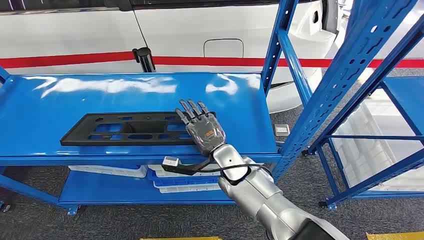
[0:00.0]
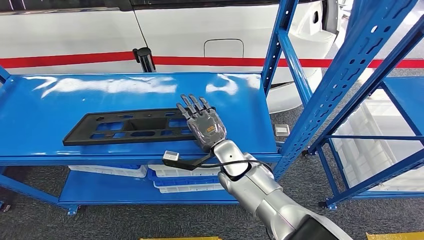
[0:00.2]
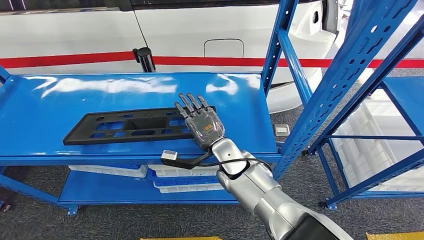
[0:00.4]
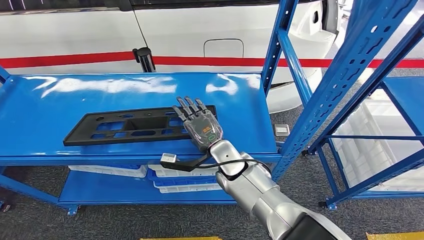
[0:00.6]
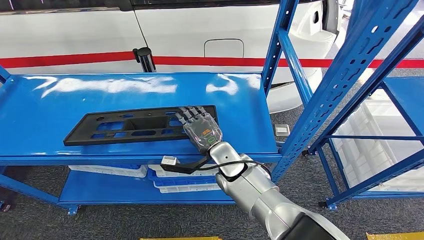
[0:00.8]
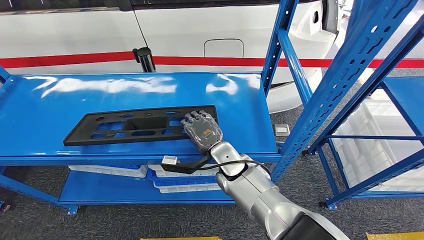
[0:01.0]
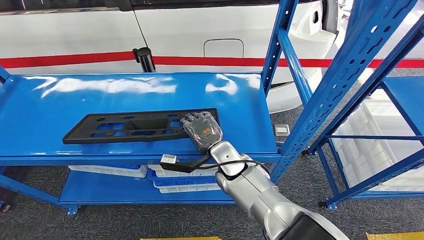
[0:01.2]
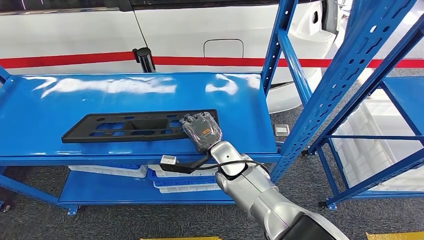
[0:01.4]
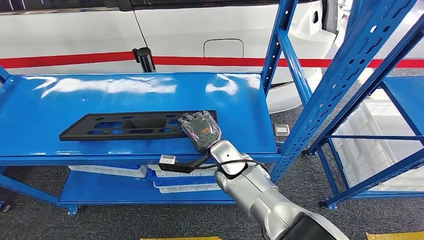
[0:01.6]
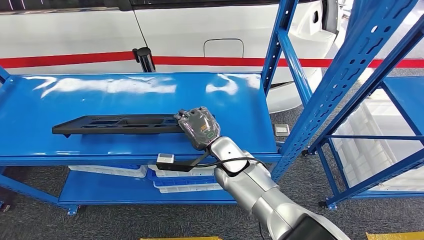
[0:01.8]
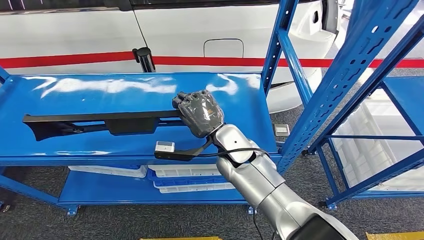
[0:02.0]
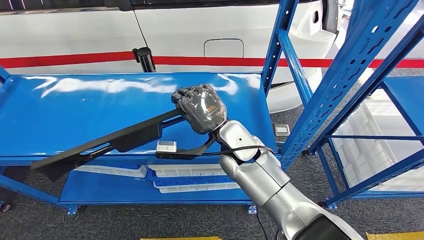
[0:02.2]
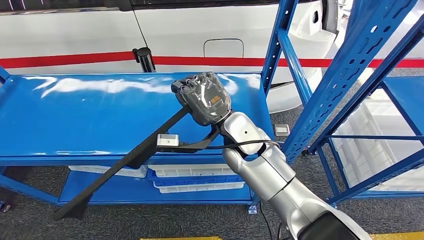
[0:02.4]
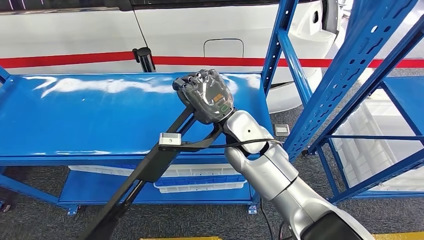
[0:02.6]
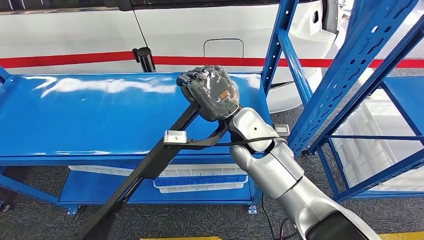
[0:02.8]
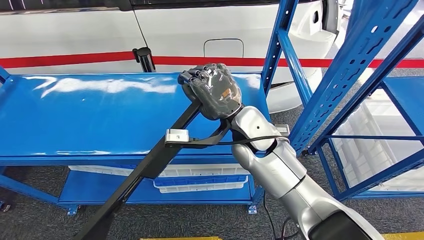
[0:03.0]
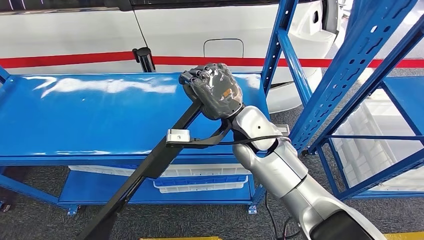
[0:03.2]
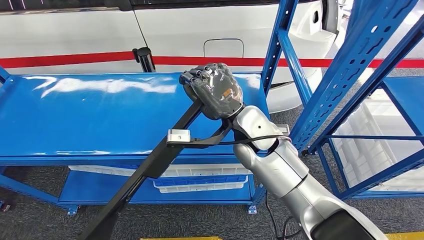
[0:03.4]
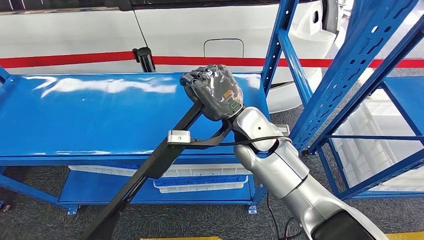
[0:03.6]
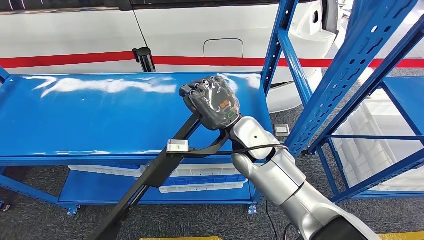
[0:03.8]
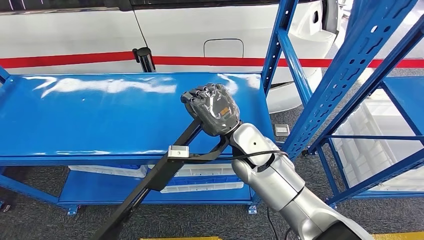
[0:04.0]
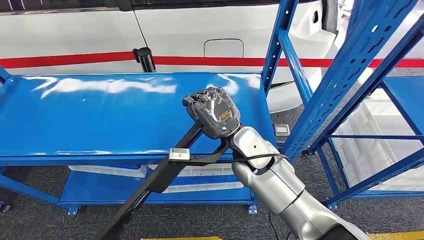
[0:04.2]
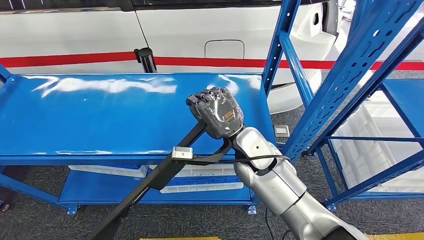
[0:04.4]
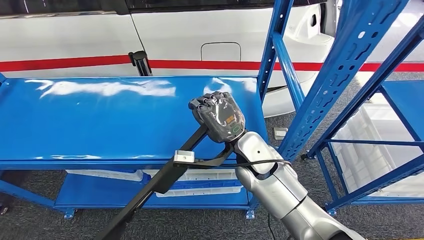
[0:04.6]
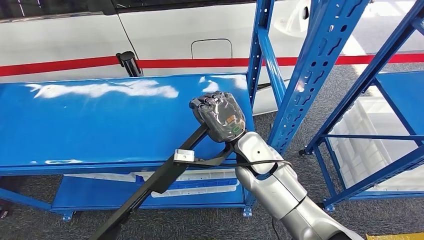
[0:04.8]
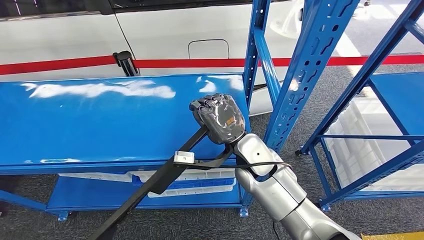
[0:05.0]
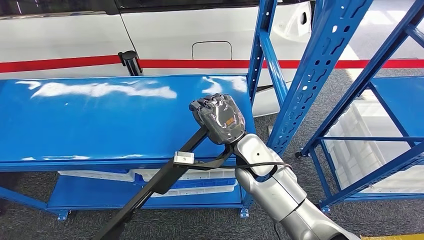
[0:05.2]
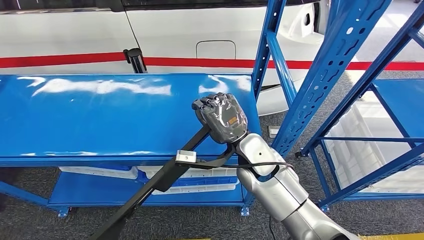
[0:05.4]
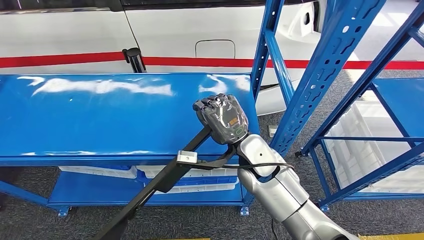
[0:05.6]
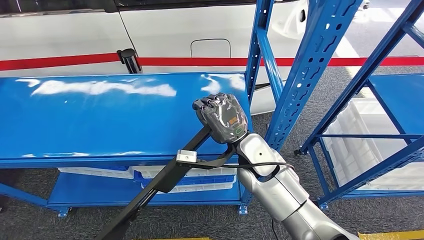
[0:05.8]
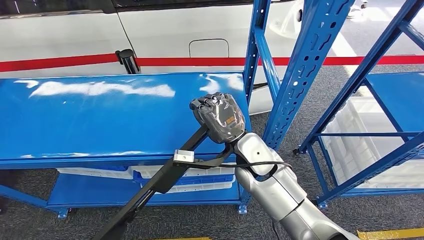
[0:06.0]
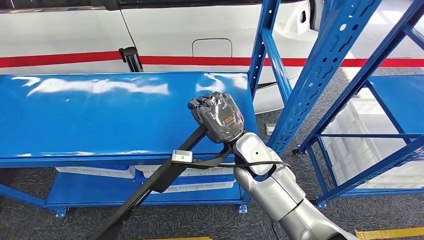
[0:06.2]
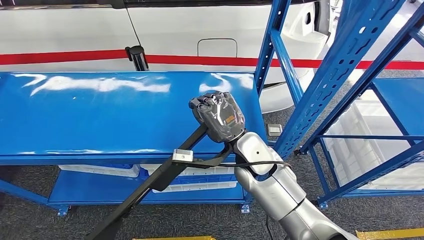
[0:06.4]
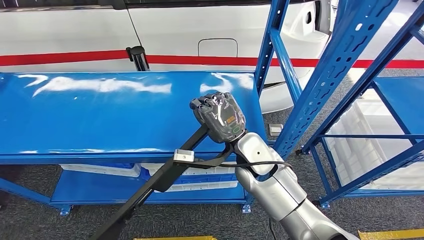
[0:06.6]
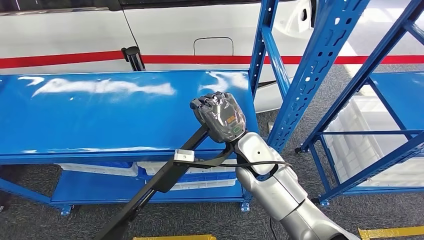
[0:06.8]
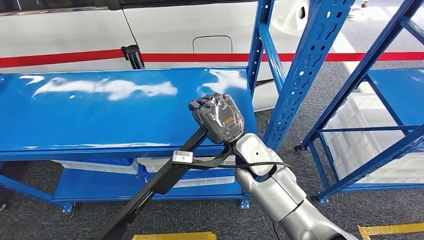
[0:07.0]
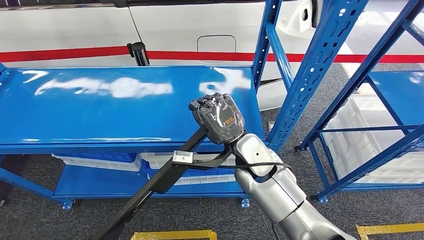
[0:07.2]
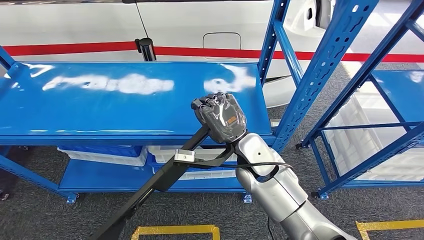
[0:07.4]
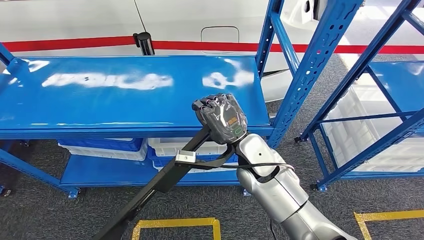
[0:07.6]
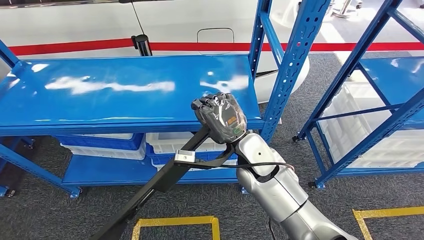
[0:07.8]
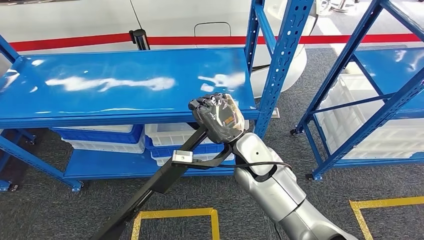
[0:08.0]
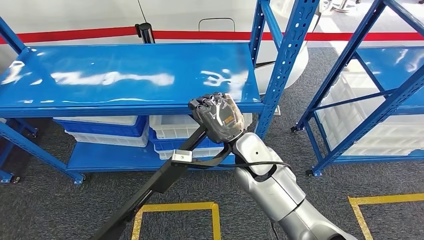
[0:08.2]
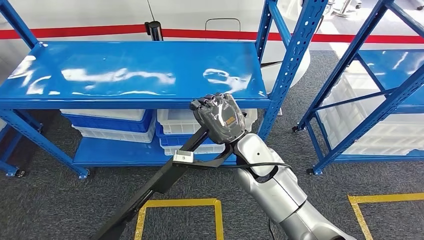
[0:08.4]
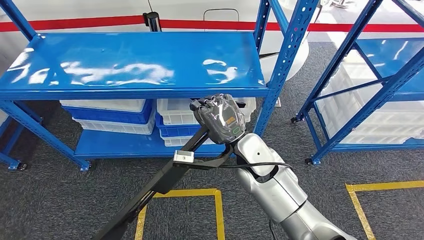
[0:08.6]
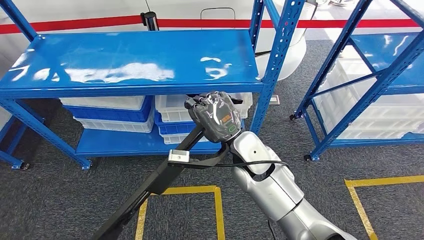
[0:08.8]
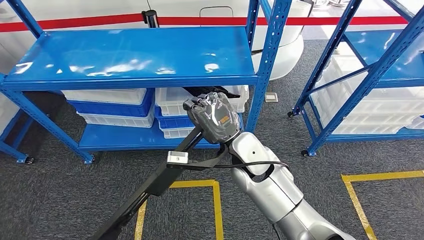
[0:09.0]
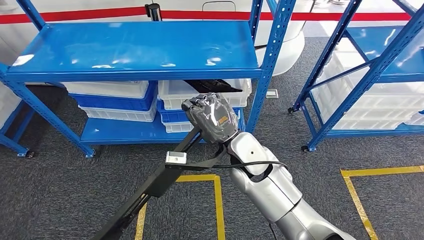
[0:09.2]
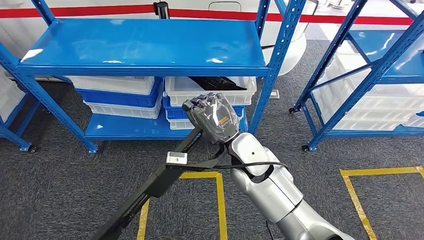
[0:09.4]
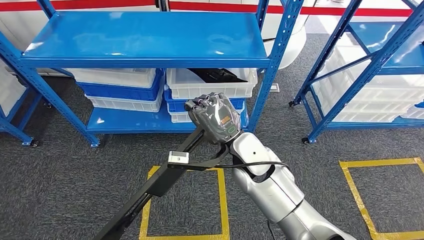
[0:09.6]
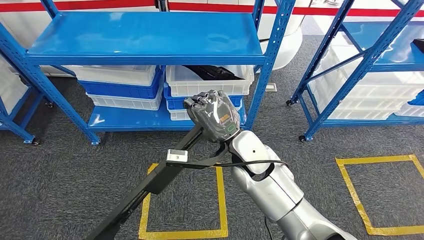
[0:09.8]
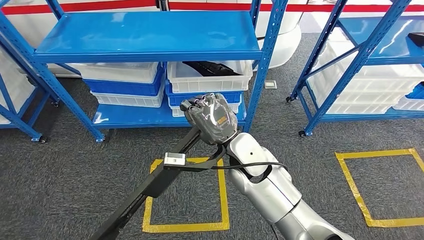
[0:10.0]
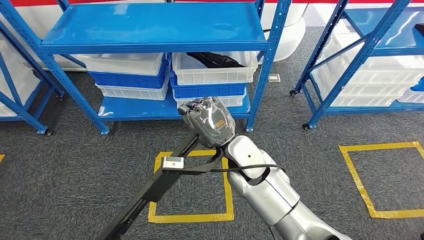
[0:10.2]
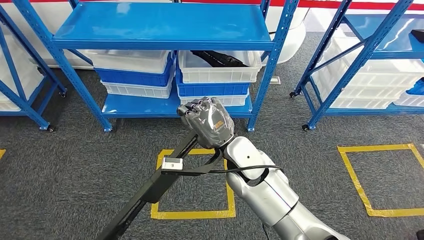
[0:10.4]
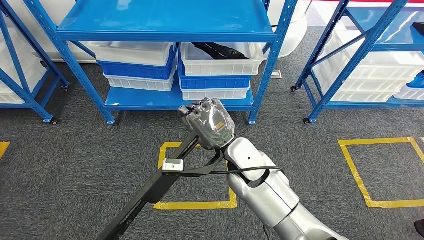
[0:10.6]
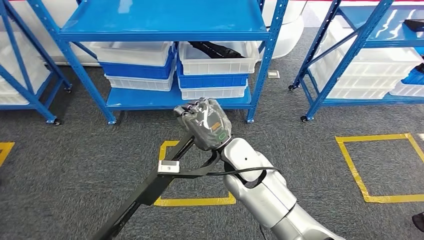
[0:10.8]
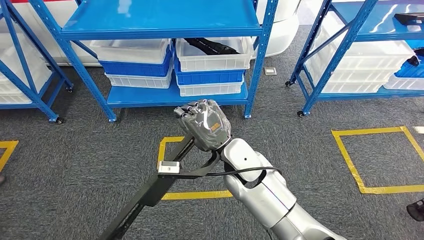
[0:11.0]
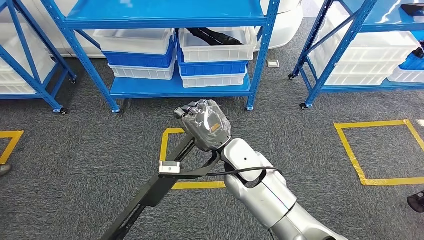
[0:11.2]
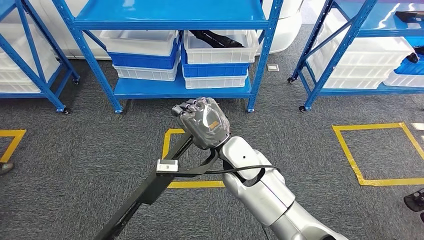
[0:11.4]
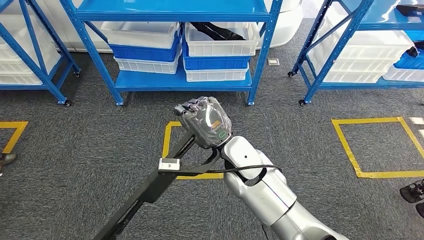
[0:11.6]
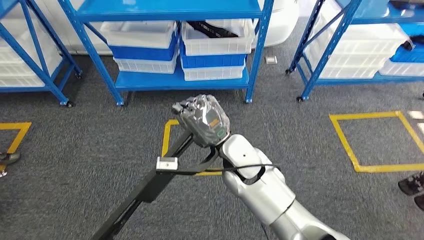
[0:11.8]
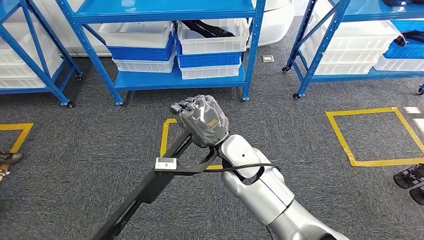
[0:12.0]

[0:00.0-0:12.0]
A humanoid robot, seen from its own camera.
Step, 0:00.0 to 0:09.8: Pick up the large material from the shelf.
0:01.6 to 0:03.0: The right hand is displaced upward by about 15 cm.

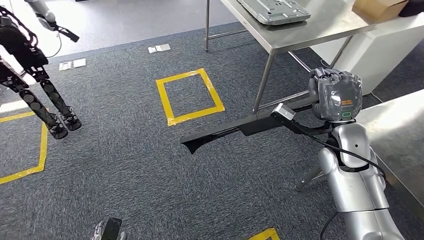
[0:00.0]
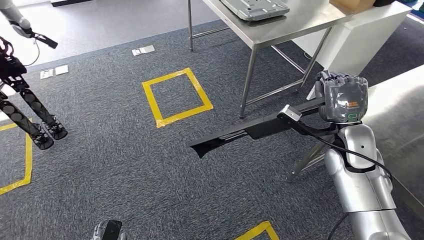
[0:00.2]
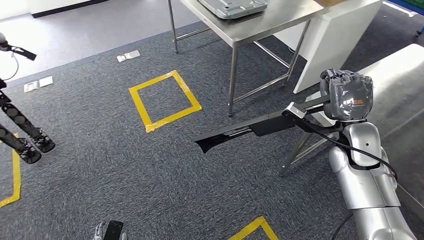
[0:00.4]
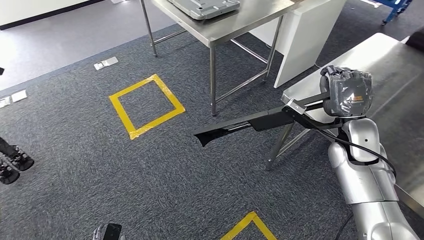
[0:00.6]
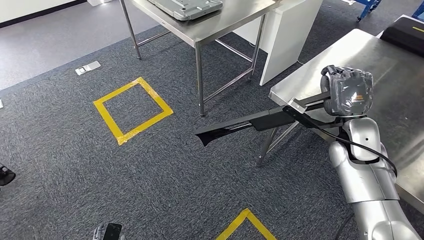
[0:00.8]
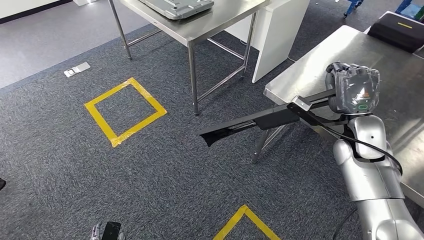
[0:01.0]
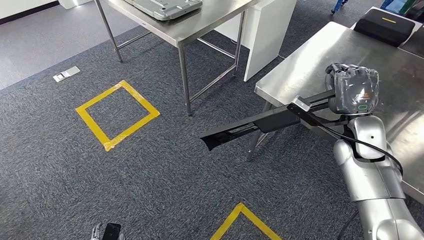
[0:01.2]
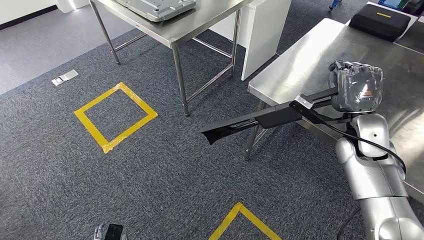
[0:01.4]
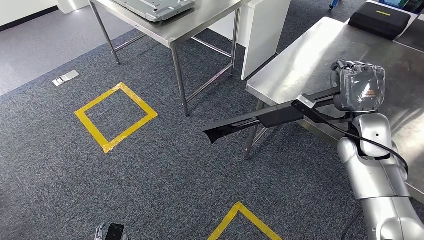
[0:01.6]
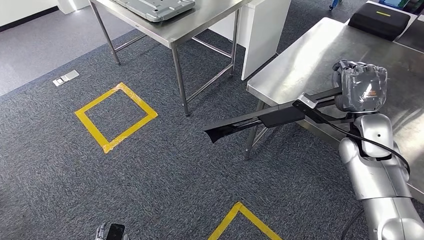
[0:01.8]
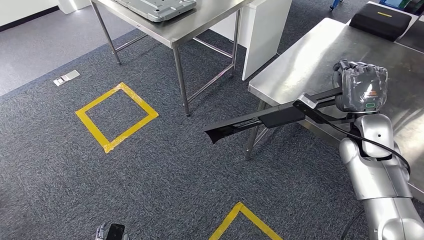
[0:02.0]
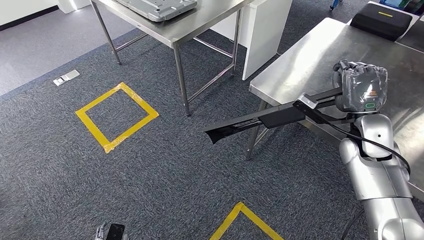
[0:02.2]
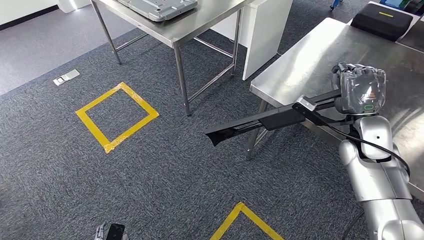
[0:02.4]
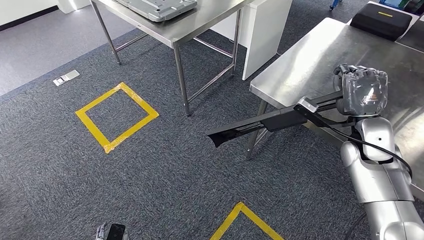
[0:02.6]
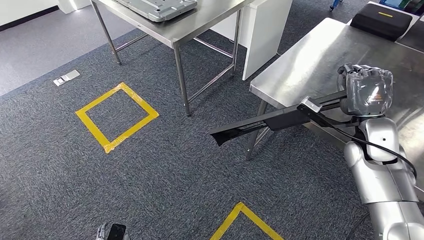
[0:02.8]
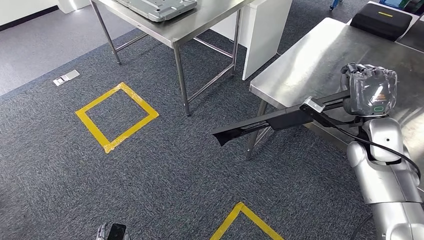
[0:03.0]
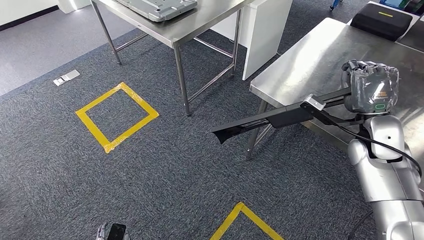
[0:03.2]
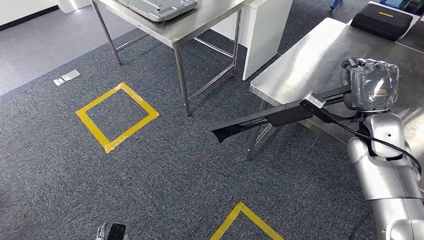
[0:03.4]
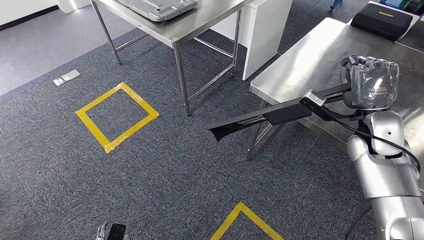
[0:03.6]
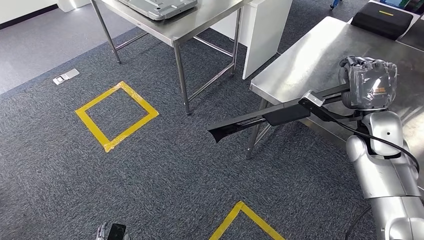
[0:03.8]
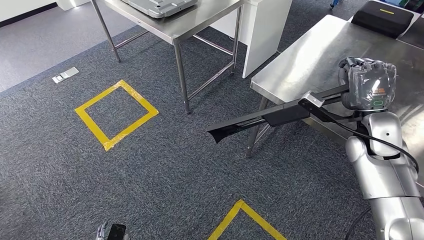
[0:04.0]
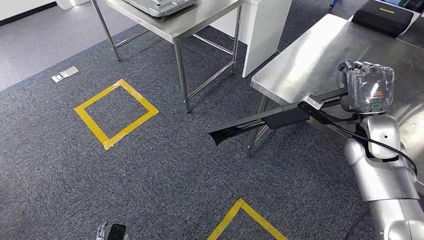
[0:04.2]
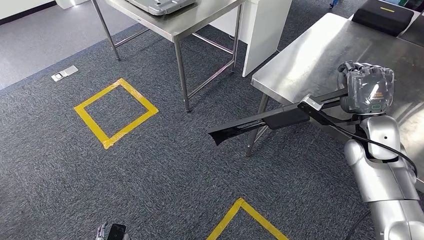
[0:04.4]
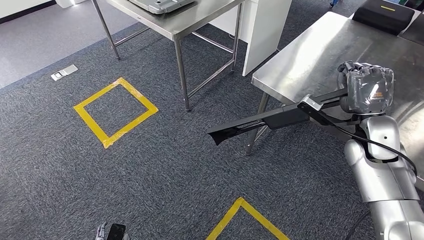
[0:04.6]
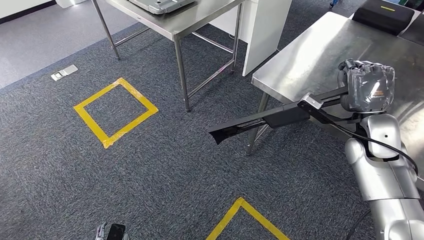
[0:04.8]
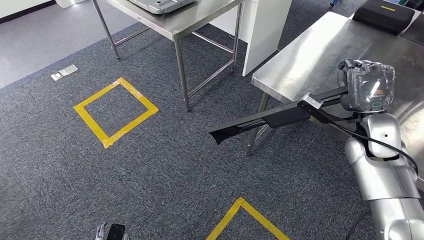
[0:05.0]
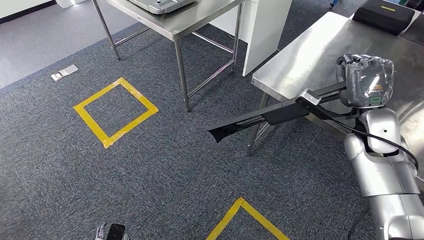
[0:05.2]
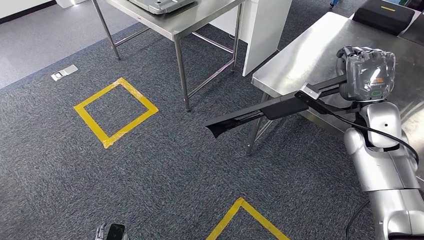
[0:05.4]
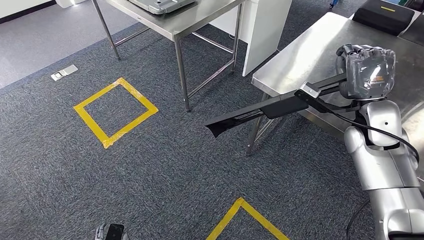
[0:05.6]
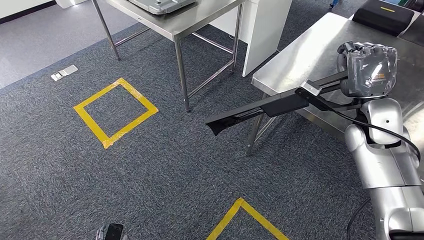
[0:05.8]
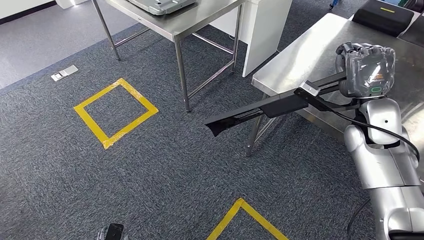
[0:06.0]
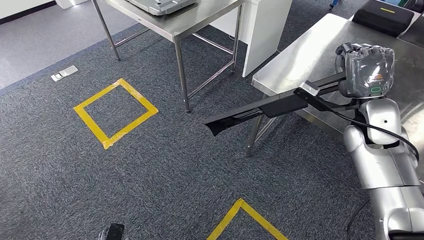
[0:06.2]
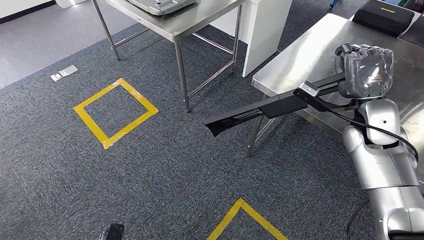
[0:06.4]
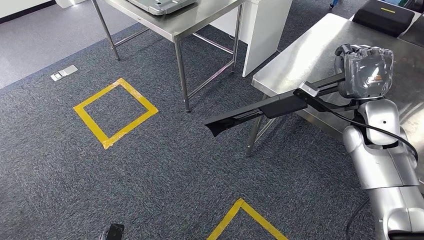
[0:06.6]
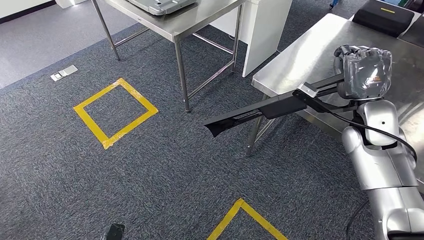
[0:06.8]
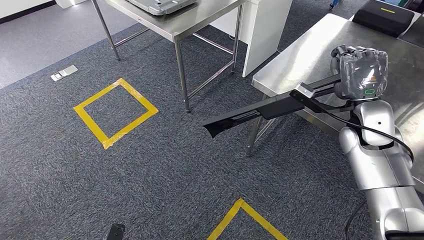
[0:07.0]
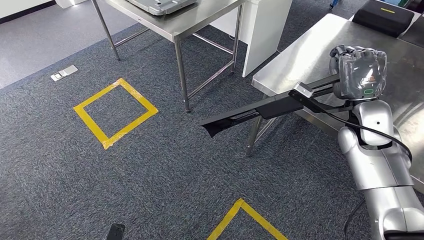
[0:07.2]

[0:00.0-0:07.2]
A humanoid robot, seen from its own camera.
0:01.4 to 0:07.2: There are only small adjustments of the hands.
